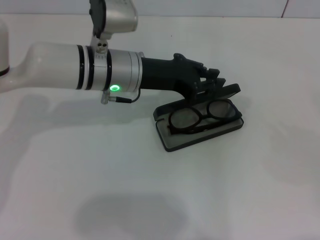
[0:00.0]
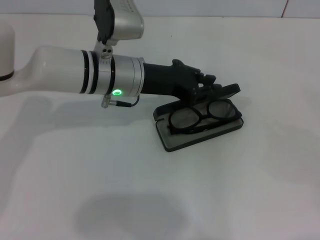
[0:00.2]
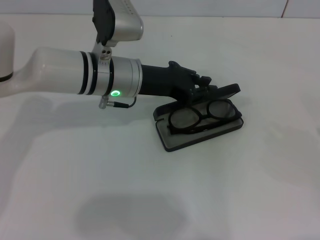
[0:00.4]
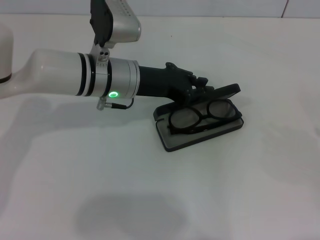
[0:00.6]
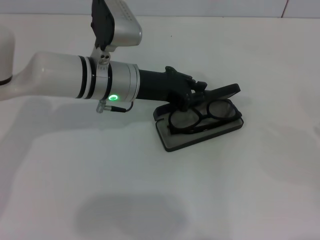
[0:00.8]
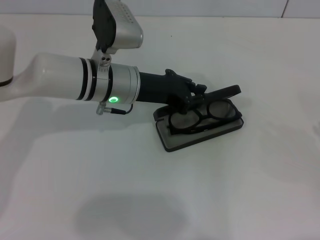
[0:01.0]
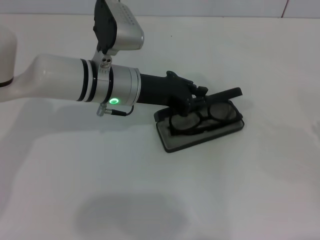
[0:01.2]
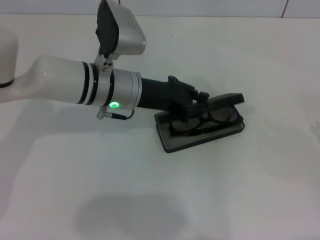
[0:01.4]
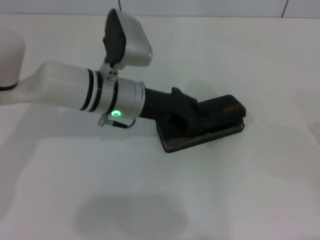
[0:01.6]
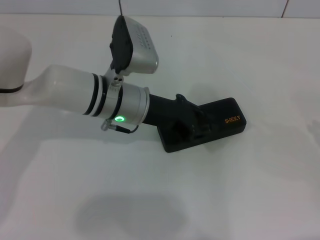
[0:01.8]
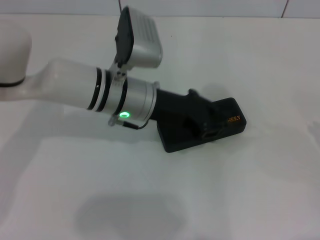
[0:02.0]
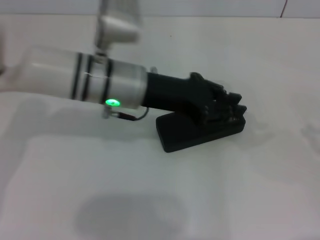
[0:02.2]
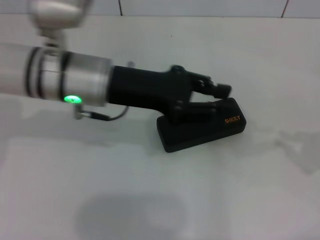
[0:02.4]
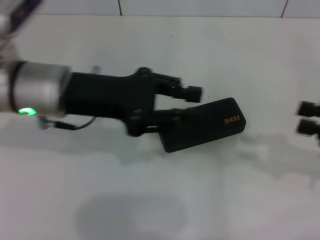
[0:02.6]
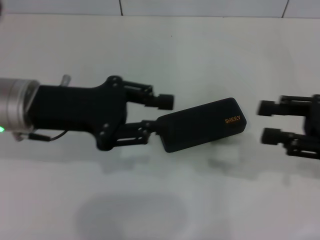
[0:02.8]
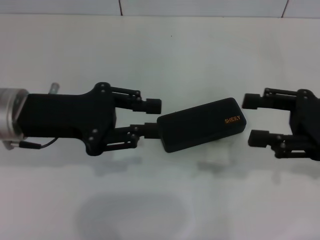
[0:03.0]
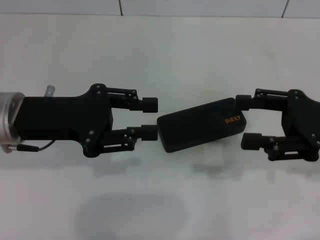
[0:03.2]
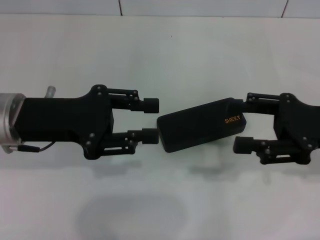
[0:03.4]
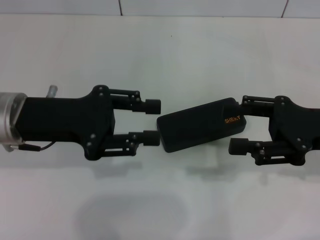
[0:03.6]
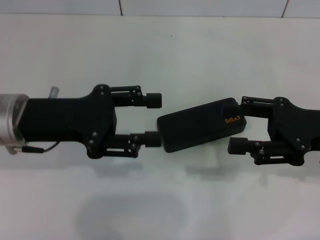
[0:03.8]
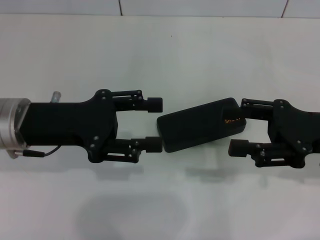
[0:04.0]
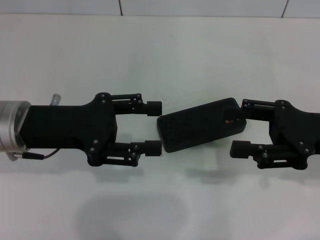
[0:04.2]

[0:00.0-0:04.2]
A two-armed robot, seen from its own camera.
0:00.0 to 0:01.4: There are only small adjustments of the grippers.
0:01.4 to 0:02.8: The left gripper goes approximately 15 cm to the left, backward and upward, while the right gripper moves to the left, some 10 cm.
0:02.8 to 0:04.2: The left gripper opens up. Meanwhile the right gripper opens its fingers.

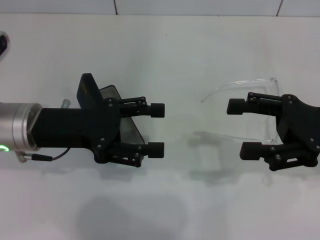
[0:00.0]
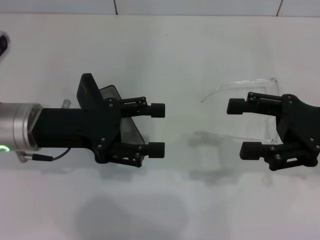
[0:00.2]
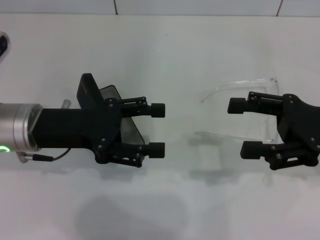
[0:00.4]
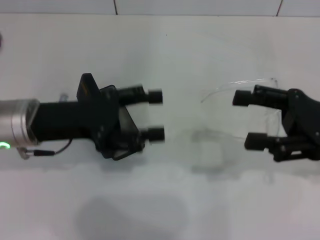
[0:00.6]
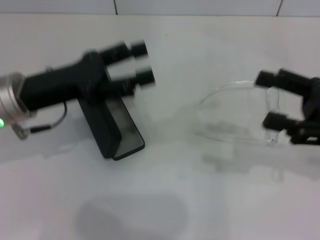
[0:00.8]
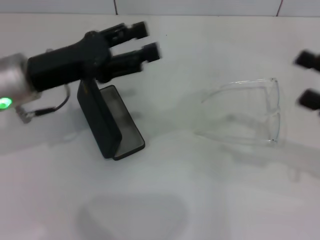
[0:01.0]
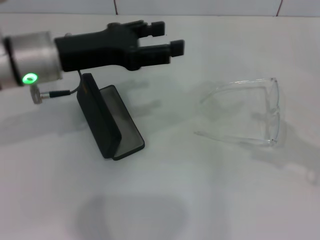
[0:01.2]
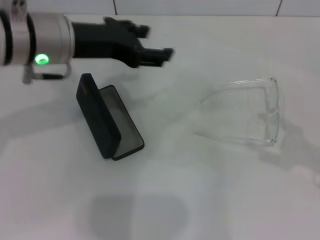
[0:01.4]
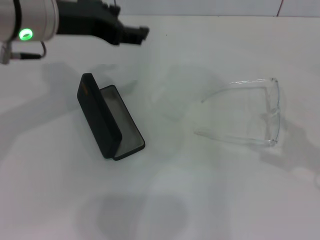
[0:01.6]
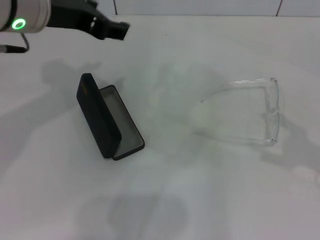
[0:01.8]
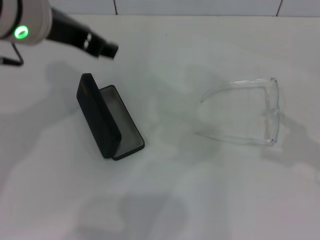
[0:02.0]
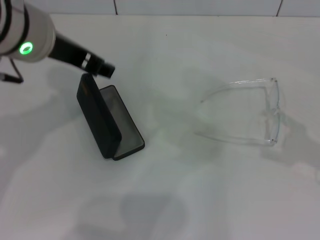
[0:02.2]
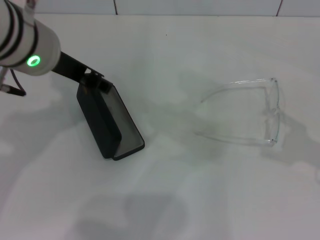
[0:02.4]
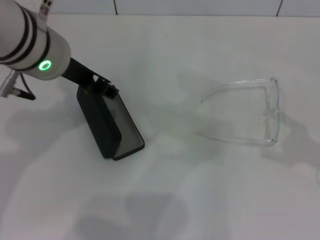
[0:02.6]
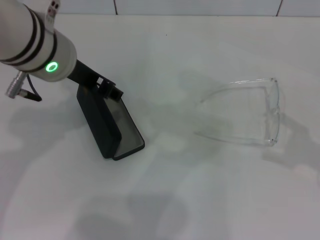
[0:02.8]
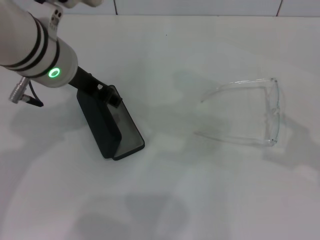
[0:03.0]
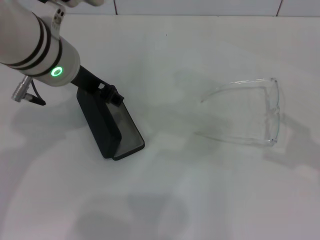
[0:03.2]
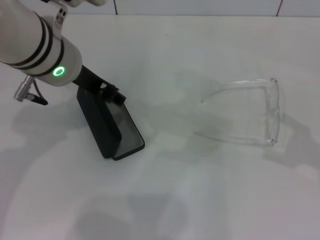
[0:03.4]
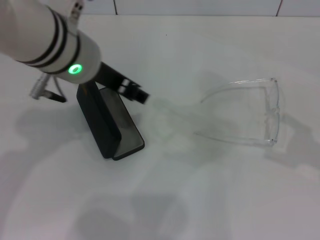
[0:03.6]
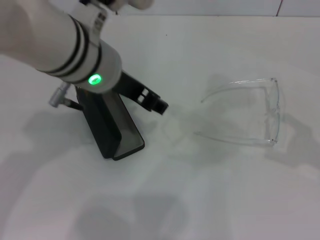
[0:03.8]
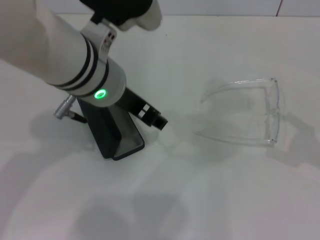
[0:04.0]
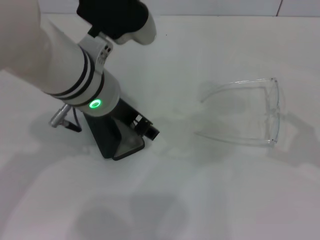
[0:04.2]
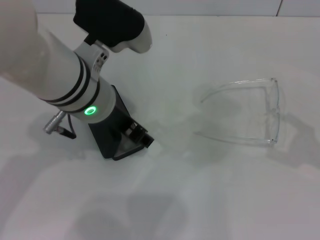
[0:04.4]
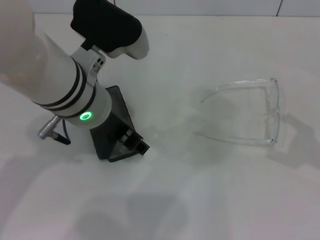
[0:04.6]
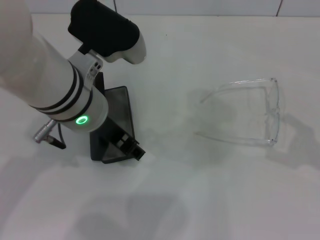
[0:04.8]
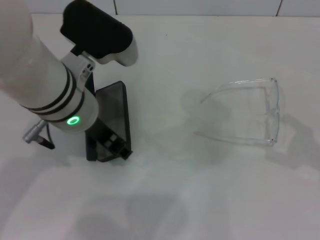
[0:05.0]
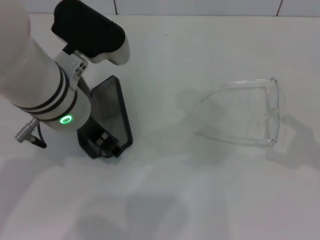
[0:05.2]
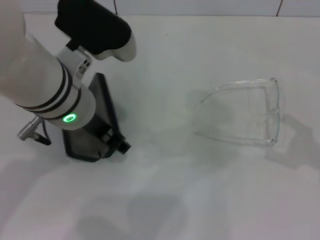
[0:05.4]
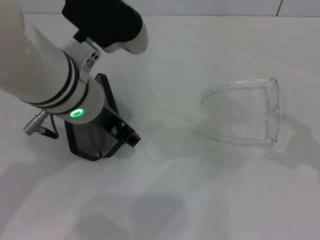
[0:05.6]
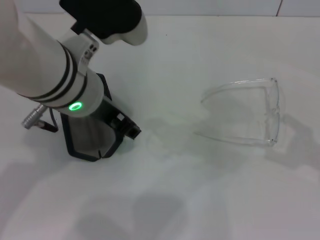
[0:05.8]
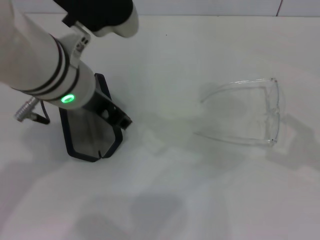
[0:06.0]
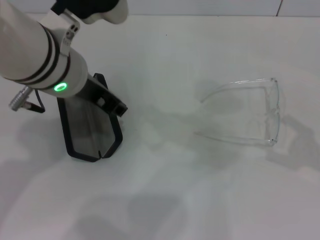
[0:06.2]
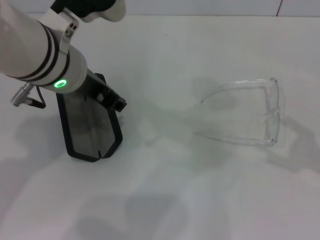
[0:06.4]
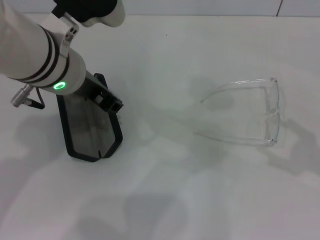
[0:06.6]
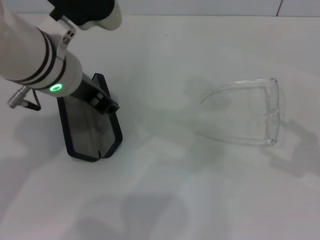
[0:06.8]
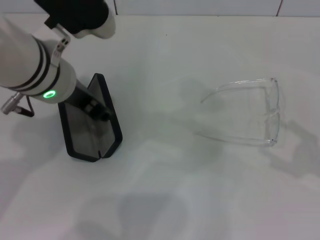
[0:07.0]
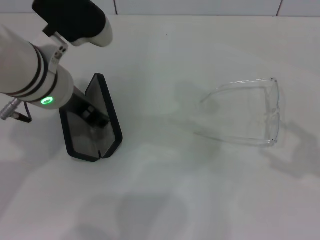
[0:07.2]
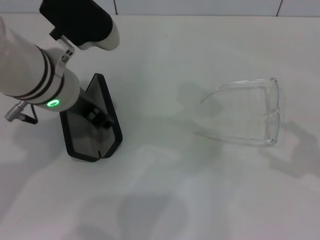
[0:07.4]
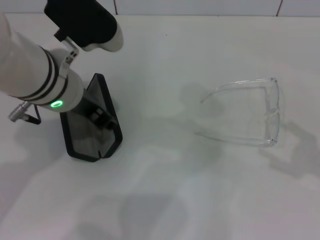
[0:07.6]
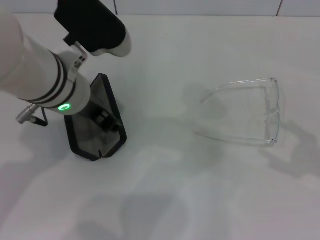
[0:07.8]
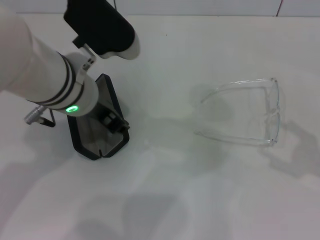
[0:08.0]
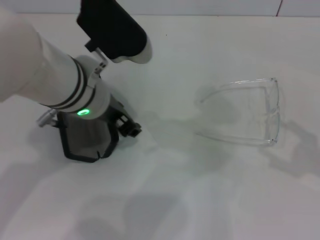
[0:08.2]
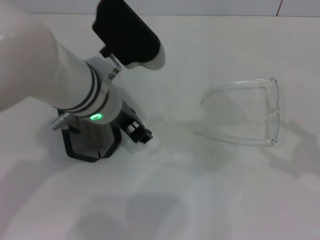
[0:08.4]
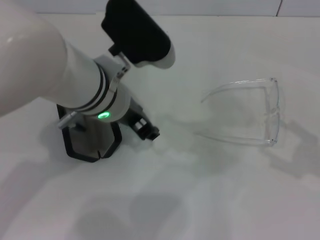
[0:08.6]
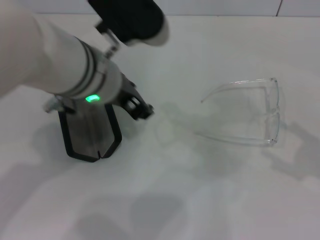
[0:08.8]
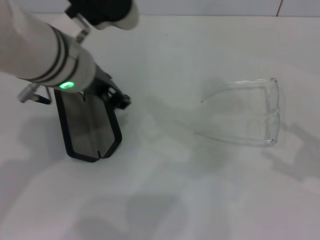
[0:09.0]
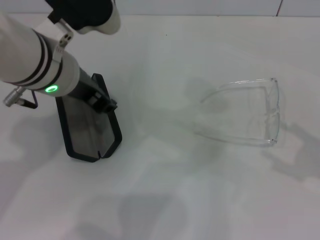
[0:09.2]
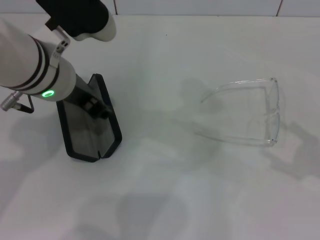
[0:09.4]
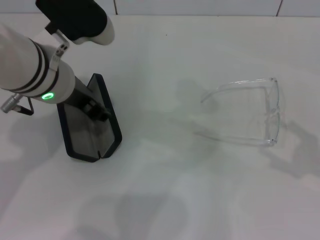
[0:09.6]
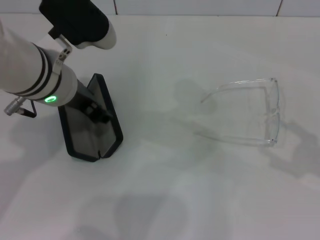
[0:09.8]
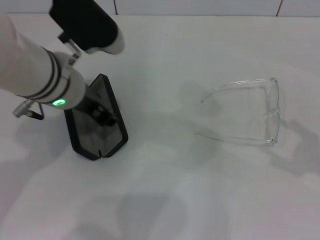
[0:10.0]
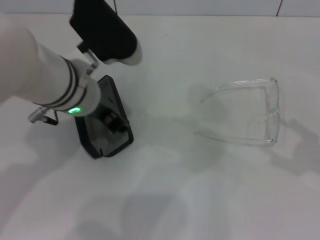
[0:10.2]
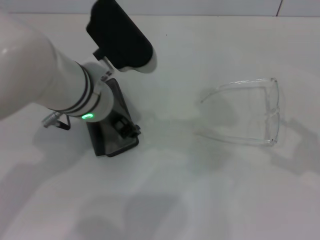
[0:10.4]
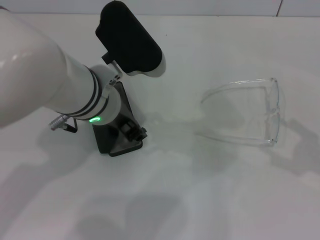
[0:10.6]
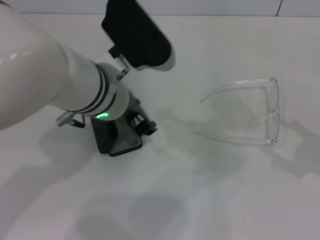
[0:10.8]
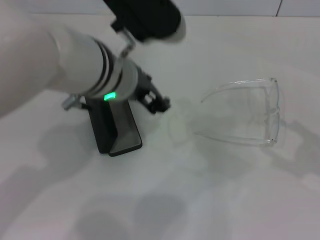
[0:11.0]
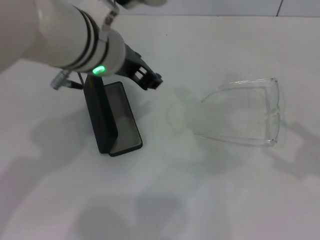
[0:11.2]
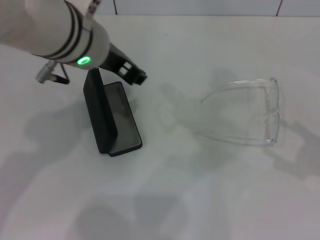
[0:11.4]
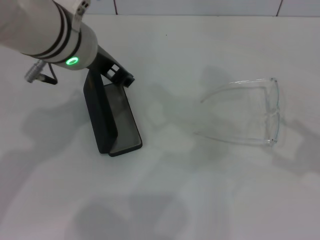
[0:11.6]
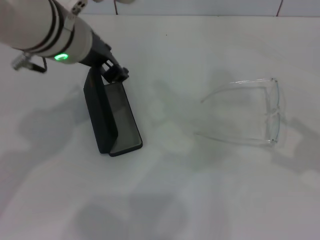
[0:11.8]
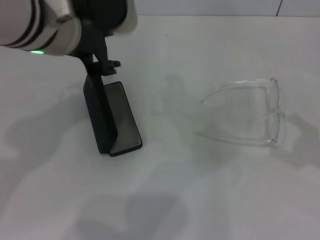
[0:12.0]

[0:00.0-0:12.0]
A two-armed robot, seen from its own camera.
0:00.0 to 0:01.6: The left gripper shifts approximately 15 cm upward, while the right gripper goes approximately 10 cm to the right and backward.
0:03.0 to 0:04.4: The left gripper changes place by some 5 cm.
0:04.4 to 0:09.0: The grippers move only a little.
0:09.0 to 0:10.4: The left gripper shifts by about 5 cm.
0:10.4 to 0:12.0: The left gripper goes roughly 10 cm upward.

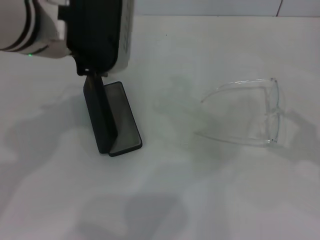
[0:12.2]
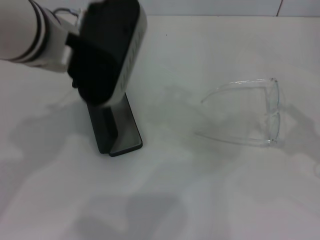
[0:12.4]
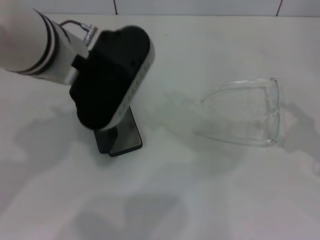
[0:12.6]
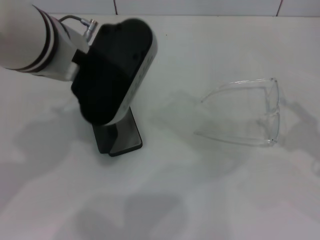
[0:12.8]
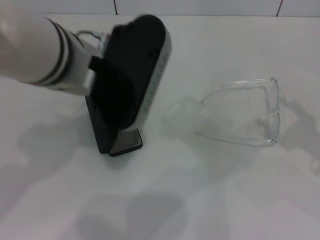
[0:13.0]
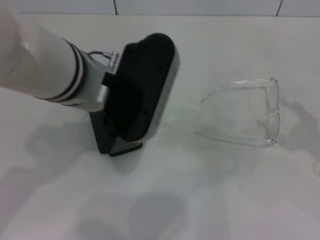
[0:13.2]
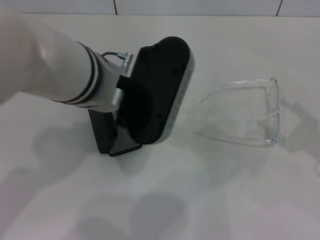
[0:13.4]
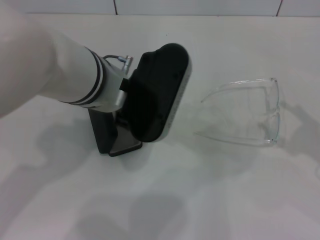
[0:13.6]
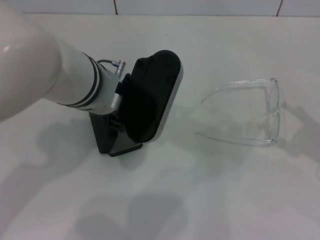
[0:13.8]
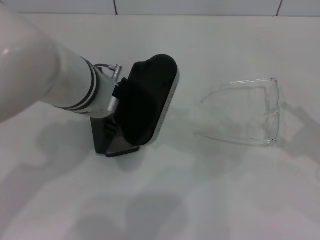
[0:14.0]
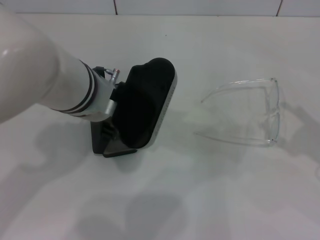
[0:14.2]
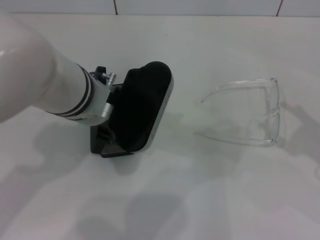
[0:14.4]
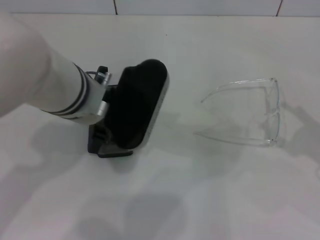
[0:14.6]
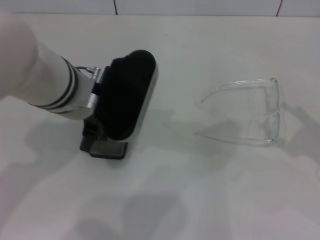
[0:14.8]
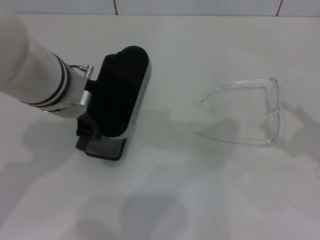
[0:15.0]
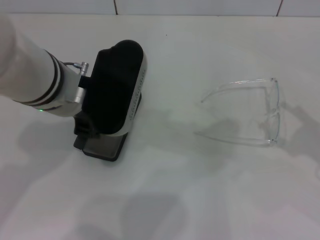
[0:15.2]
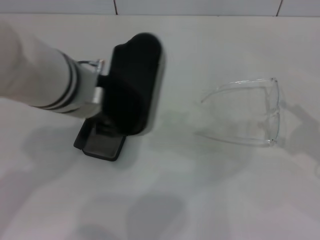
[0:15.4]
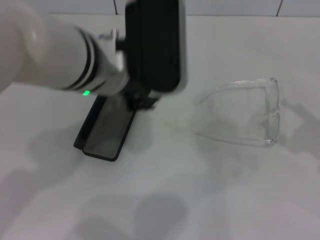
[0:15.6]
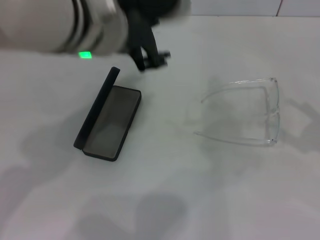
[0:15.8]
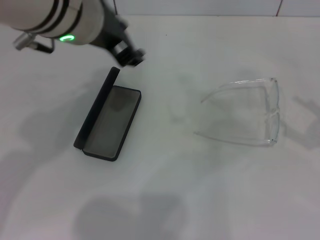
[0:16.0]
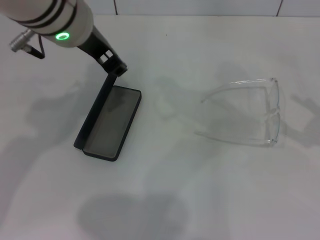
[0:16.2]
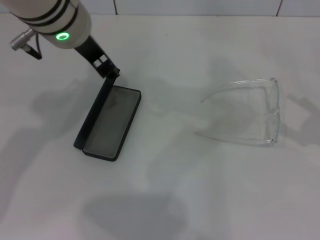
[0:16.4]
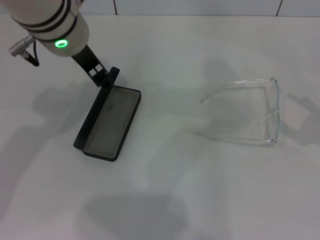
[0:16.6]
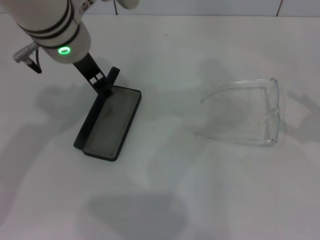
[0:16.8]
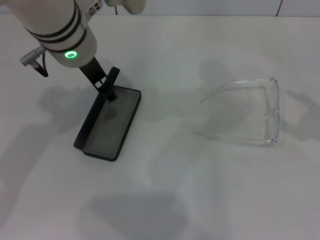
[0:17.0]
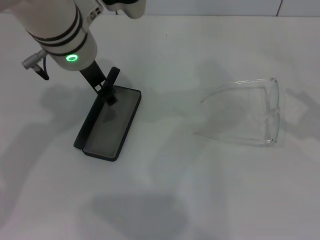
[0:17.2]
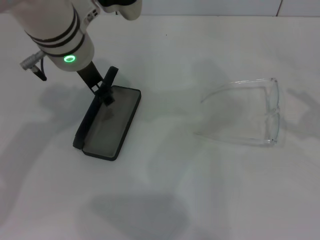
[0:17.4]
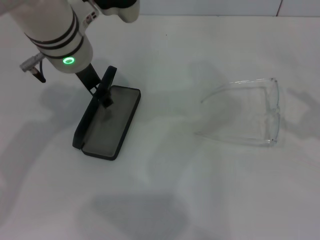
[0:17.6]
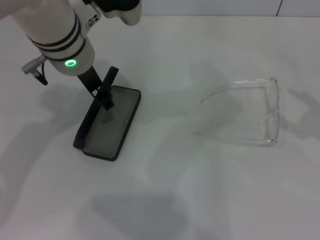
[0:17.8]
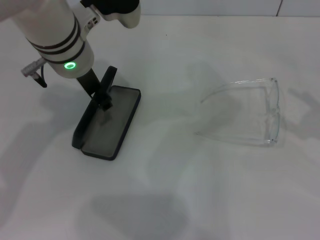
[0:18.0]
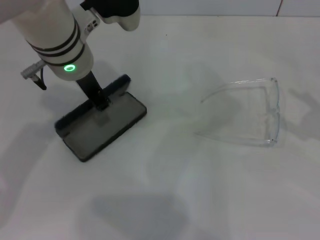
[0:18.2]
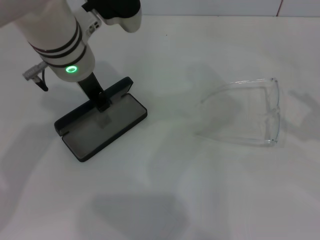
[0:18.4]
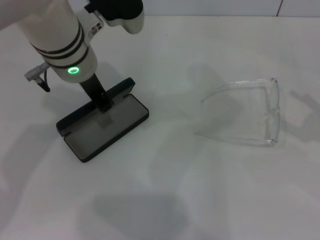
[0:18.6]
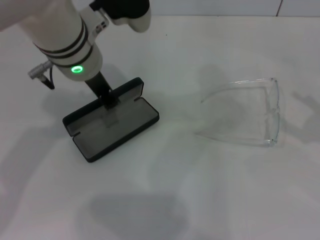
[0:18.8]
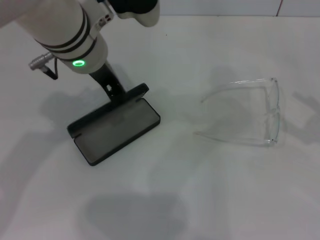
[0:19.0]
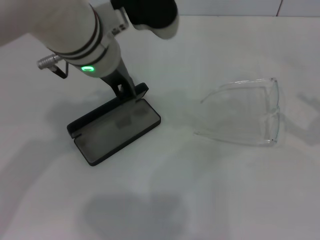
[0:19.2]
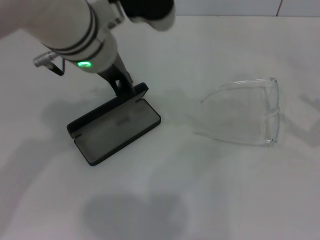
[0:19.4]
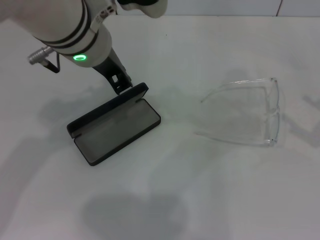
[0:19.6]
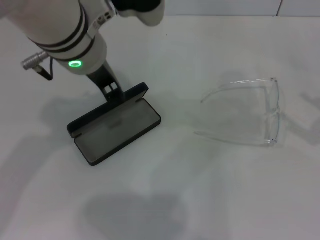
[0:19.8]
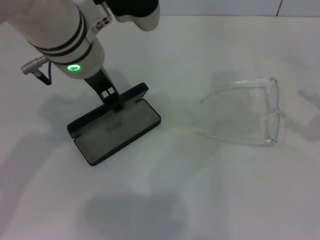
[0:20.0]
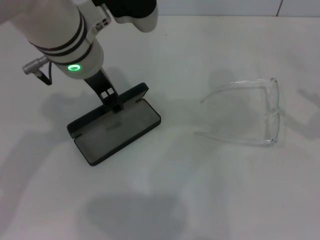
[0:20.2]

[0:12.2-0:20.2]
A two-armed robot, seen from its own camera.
0:12.2 to 0:13.8: The left gripper moves downward, about 5 cm.
0:13.8 to 0:15.4: There are only small adjustments of the grippers.
0:15.4 to 0:17.0: The left gripper moves forward, approximately 5 cm.
0:17.0 to 0:18.6: The left gripper closes up.
0:18.6 to 0:20.2: The left gripper opens up.
